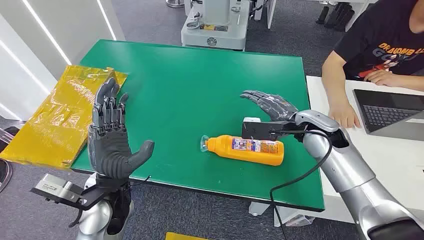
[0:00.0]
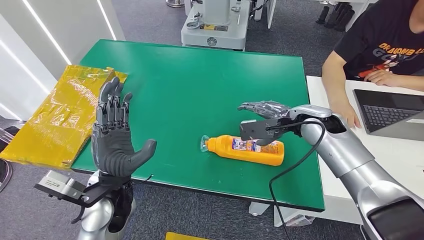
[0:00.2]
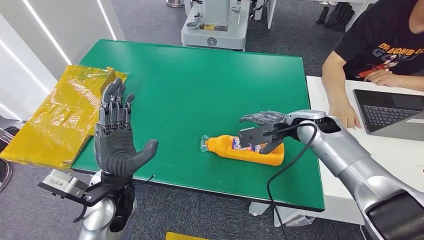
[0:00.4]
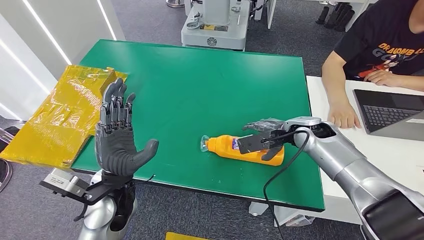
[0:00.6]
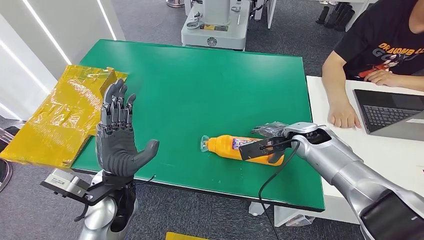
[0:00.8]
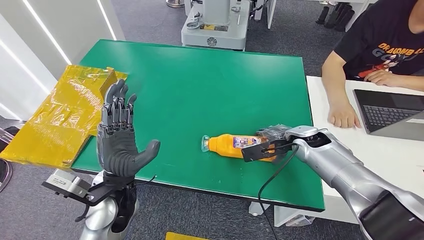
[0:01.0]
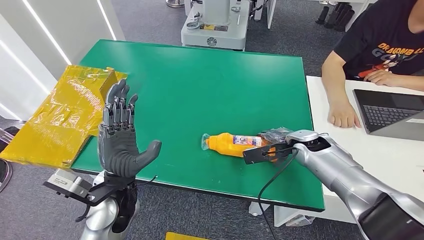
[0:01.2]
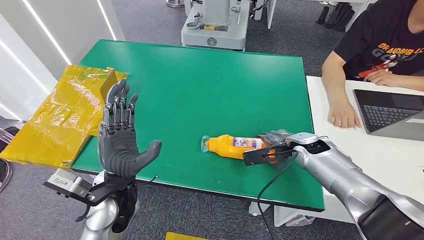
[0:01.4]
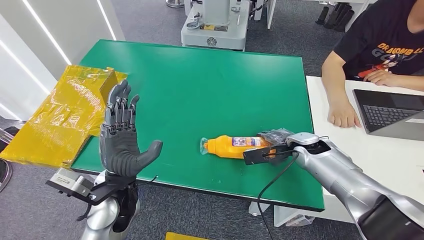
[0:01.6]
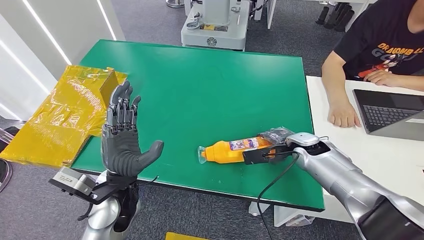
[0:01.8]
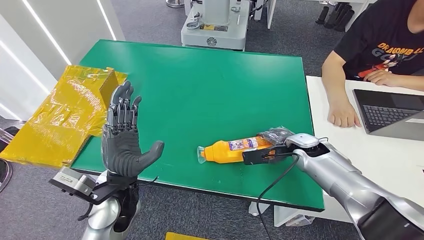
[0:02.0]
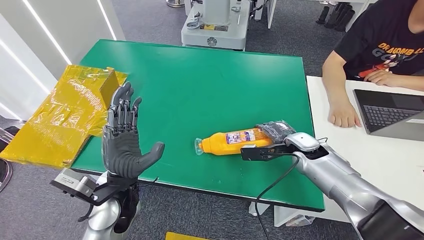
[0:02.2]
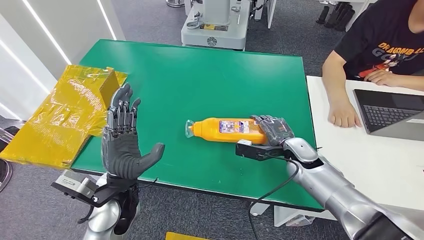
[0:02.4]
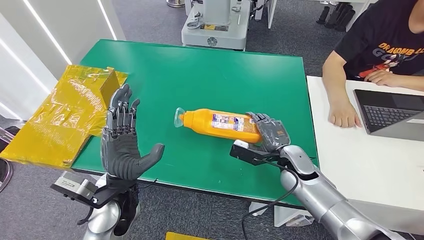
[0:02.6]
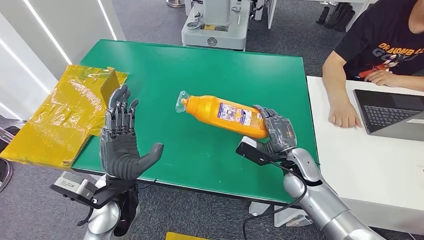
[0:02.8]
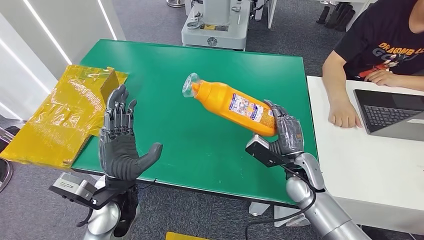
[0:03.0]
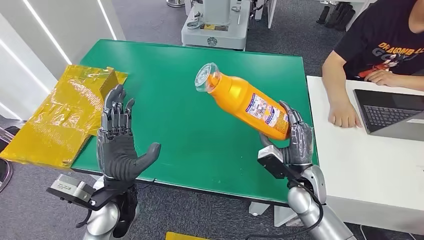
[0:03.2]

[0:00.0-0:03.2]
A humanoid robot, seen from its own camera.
Step, 0:00.0 to 0:03.0: Pick up the bottle from the table.
0:01.6 to 0:03.2: The right hand travels backward and to the left by roughly 15 cm.
